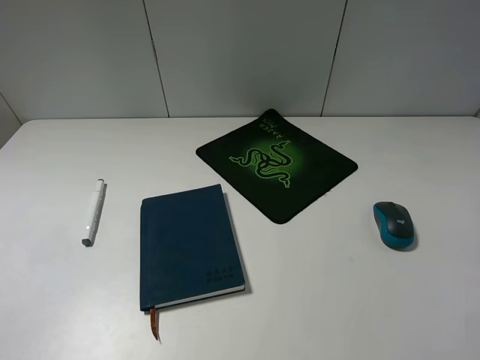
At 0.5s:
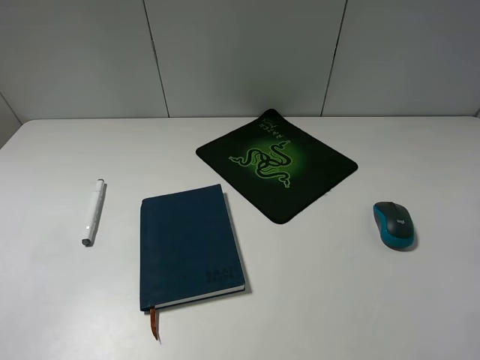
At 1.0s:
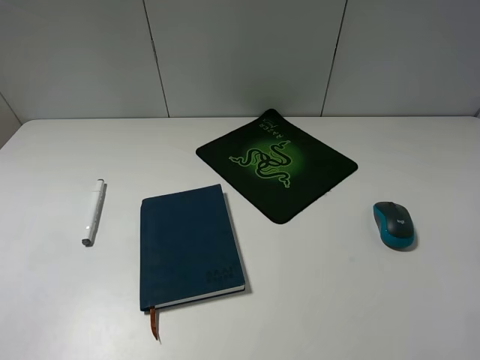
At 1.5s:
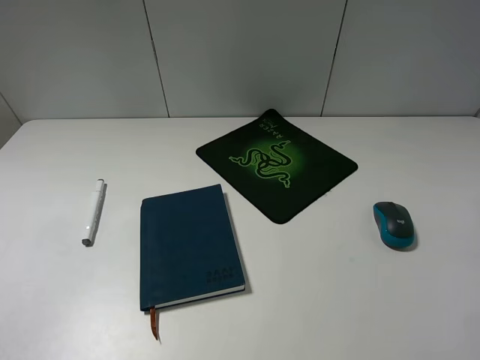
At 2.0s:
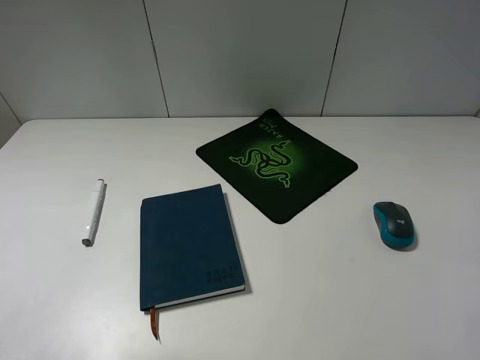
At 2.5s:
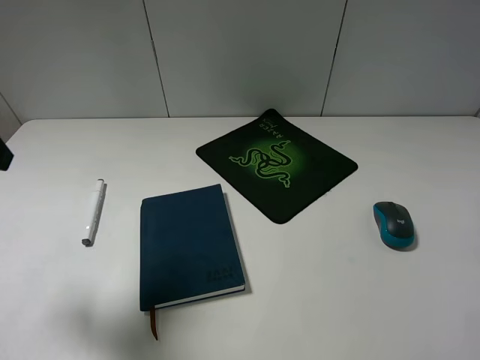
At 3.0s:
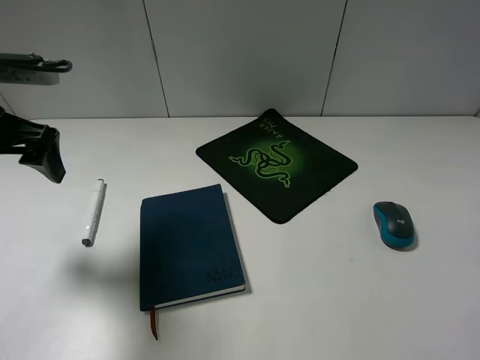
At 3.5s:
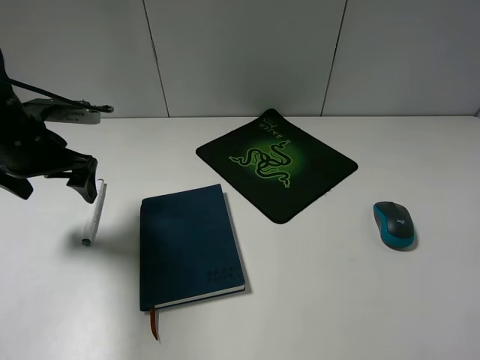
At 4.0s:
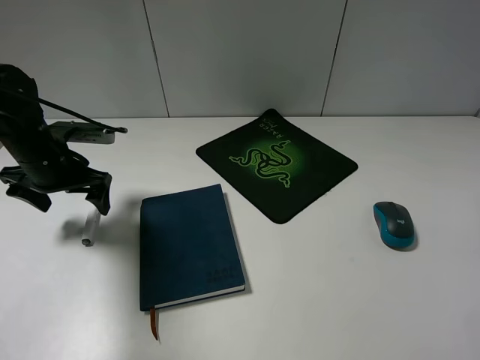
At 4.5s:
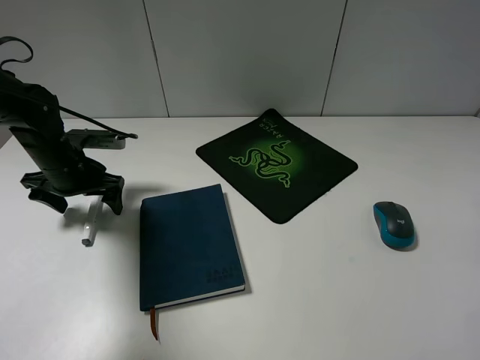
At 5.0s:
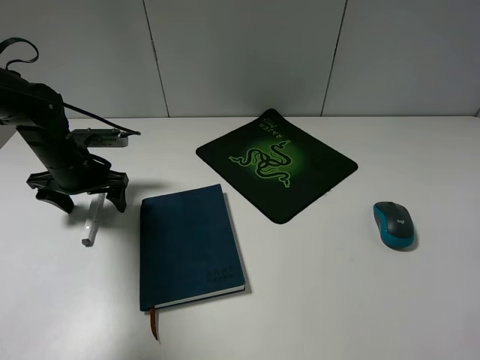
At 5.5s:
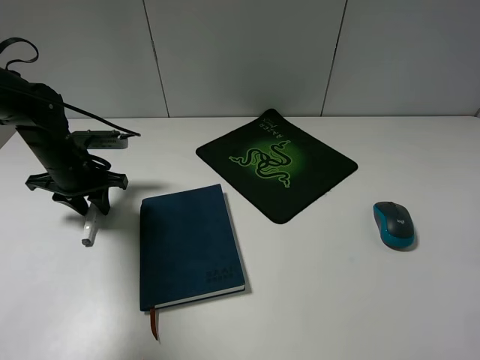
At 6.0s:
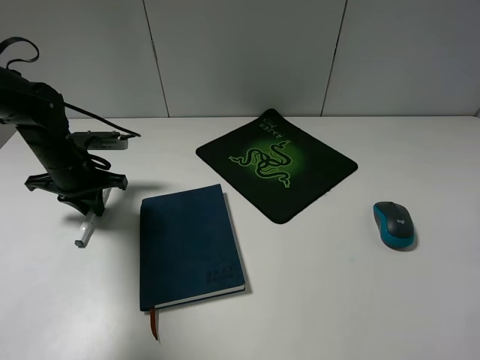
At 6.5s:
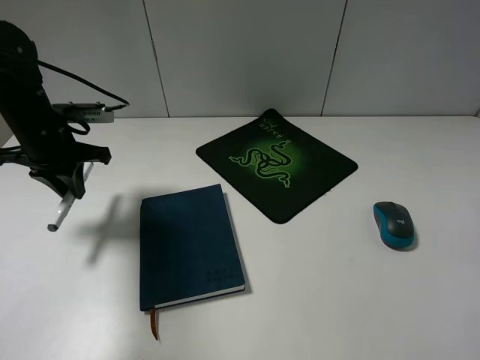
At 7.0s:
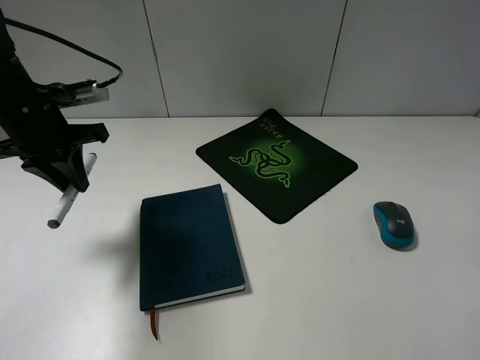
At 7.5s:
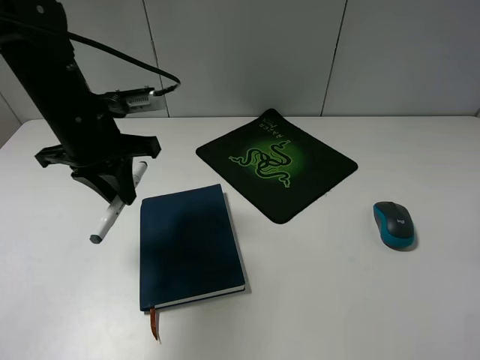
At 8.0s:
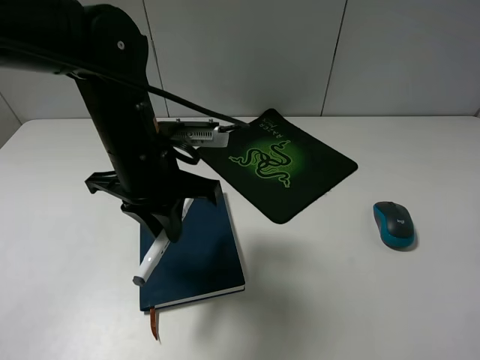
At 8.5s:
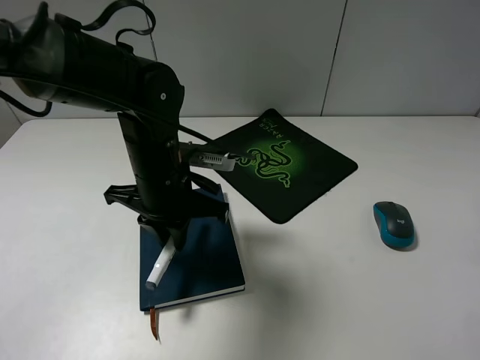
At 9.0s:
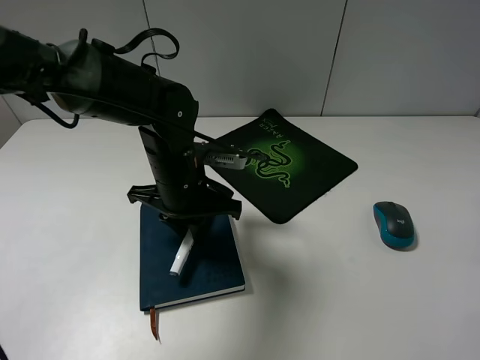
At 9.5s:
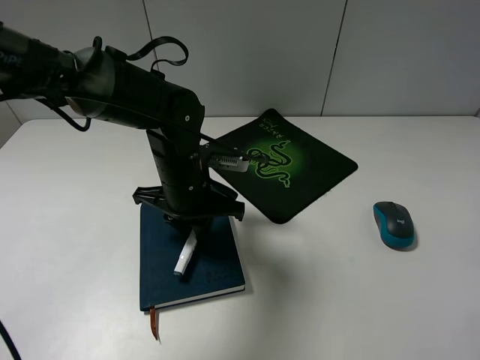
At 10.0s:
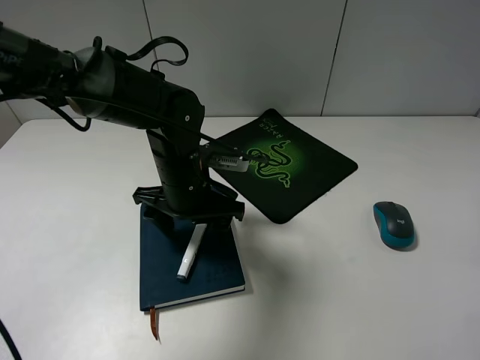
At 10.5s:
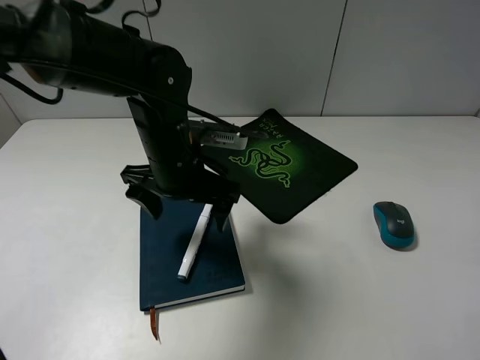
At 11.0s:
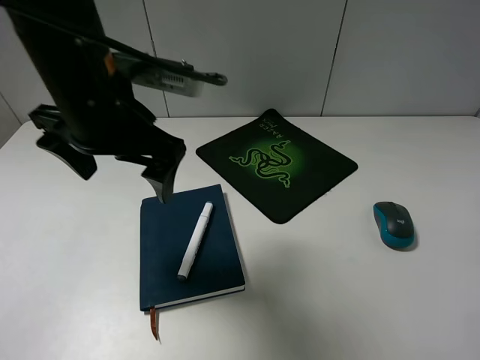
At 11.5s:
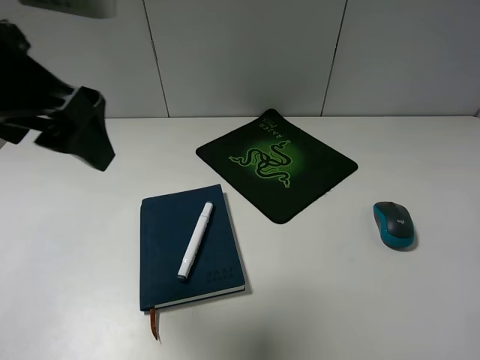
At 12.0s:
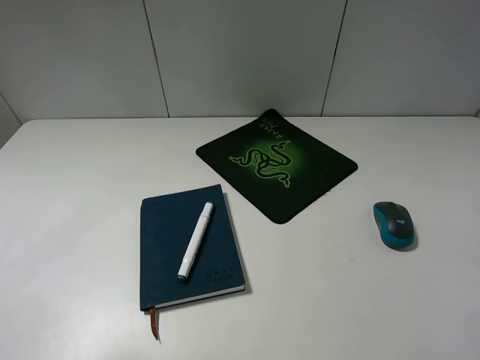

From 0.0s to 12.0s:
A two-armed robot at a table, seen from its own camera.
Step, from 0.0s to 5.5s: Grasp the marker with the left gripper.
Step, from 6.0s to 10.0s: Place the marker on the notebook with the left gripper.
From 2.0s to 4.0s: The left gripper goes some 30 cm forward and downward.
From 4.0s to 6.0s: The left gripper closes its fingers.
From 6.0s to 8.0s: The left gripper moves to the right, backward and upward, about 25 cm.
From 8.0s to 10.0s: The left gripper travels downward by some 10 cm, and opens its fingers.
From 10.0s to 12.0s: The left gripper goes about 35 cm upward, backward and to the left.

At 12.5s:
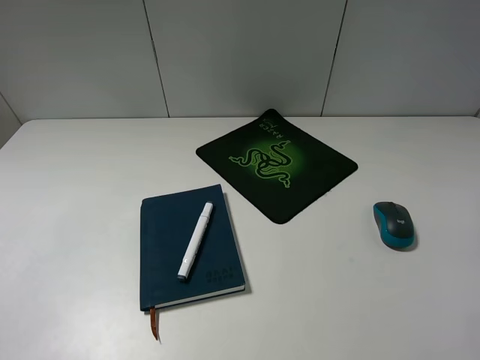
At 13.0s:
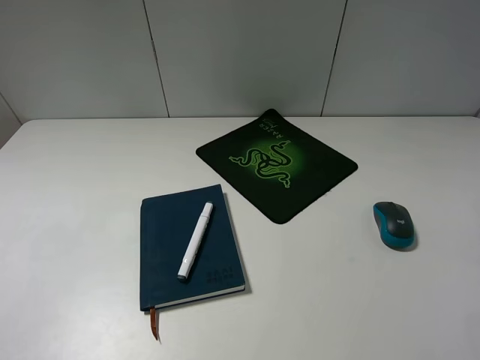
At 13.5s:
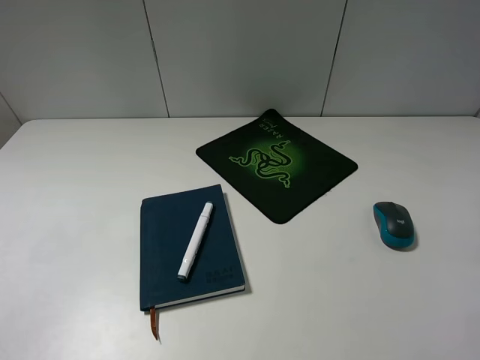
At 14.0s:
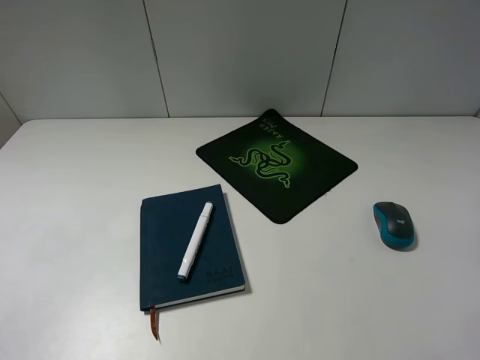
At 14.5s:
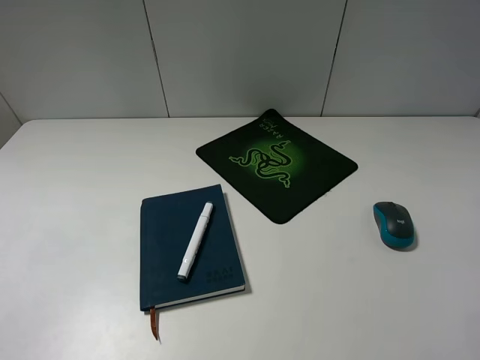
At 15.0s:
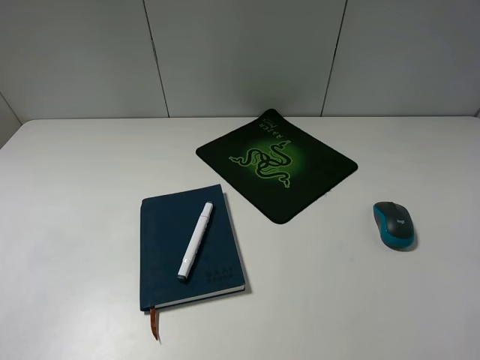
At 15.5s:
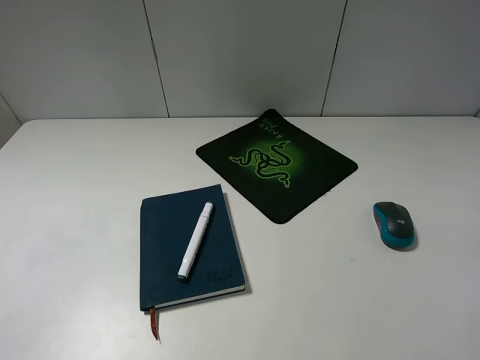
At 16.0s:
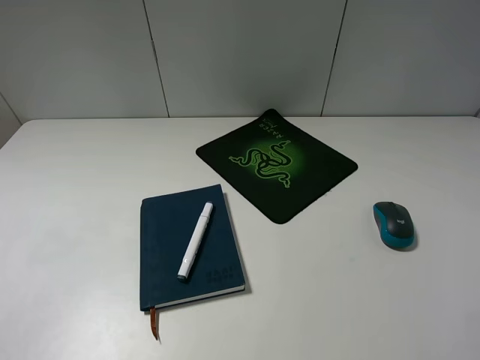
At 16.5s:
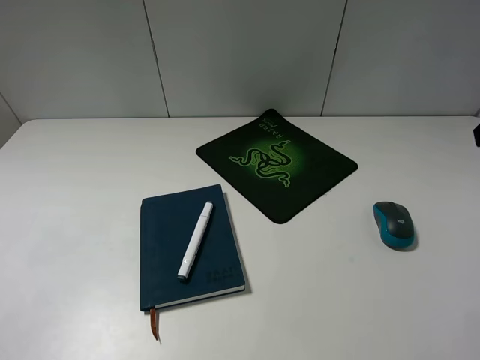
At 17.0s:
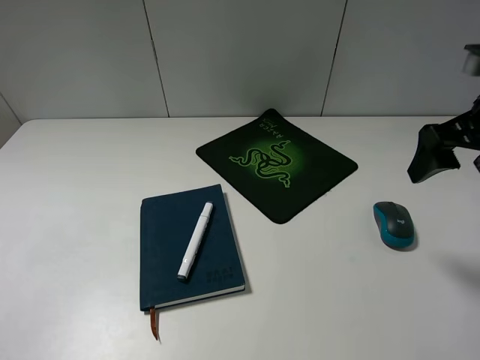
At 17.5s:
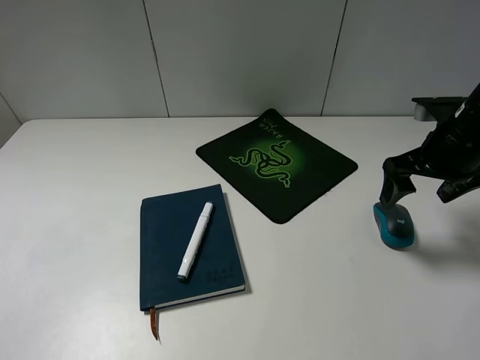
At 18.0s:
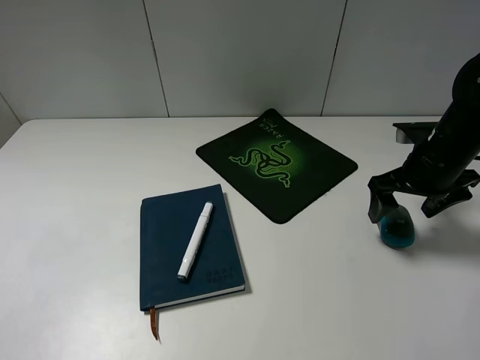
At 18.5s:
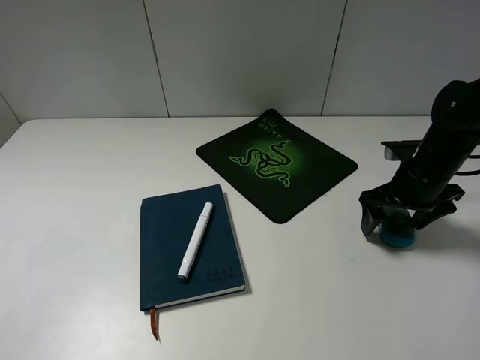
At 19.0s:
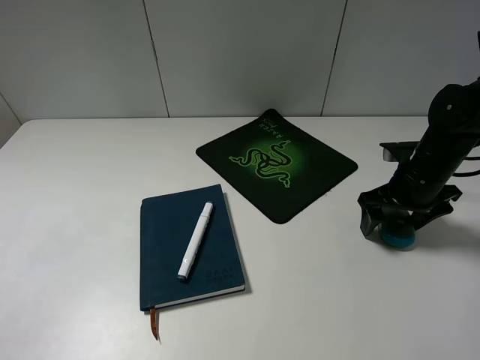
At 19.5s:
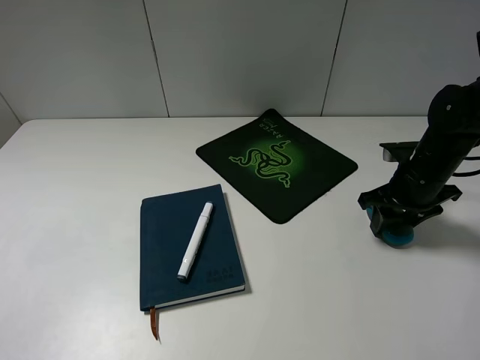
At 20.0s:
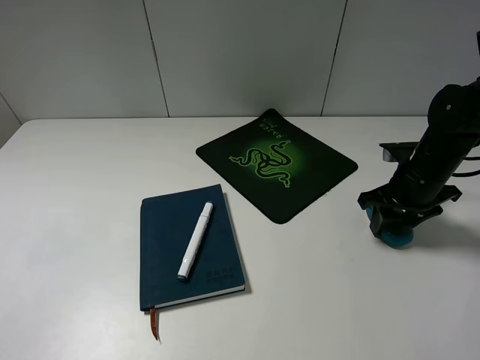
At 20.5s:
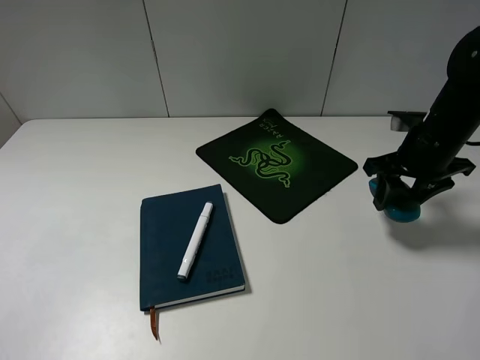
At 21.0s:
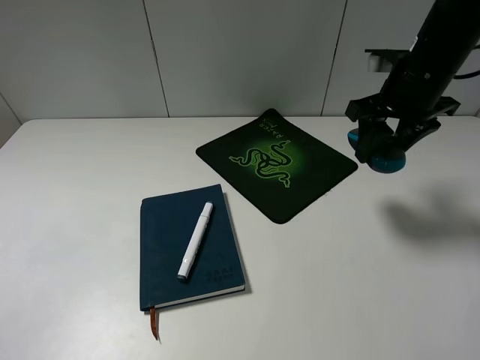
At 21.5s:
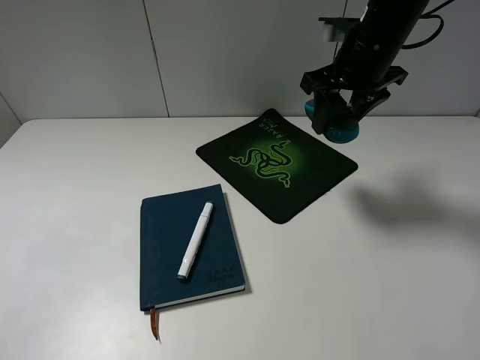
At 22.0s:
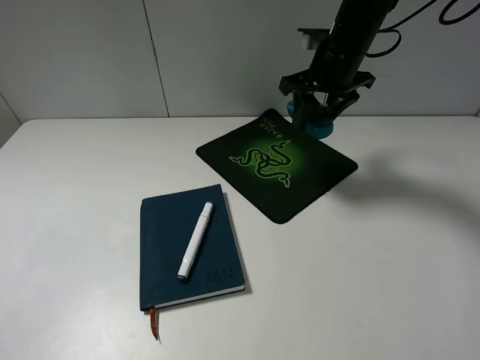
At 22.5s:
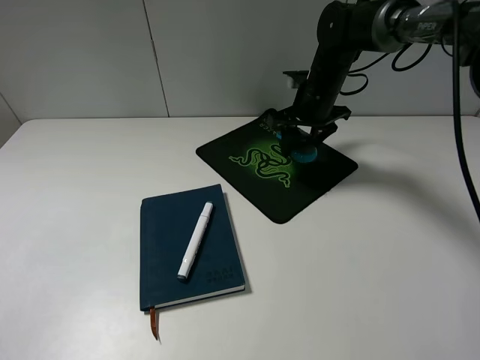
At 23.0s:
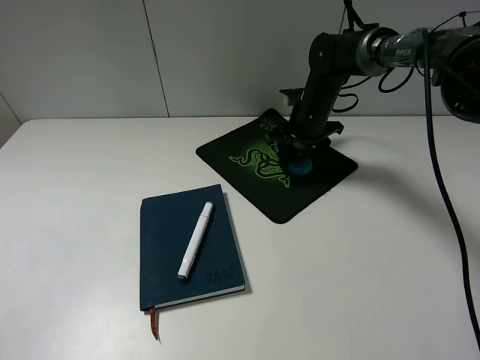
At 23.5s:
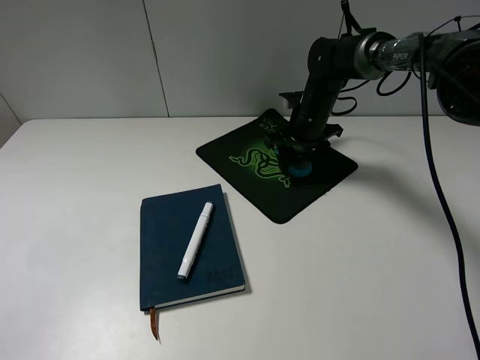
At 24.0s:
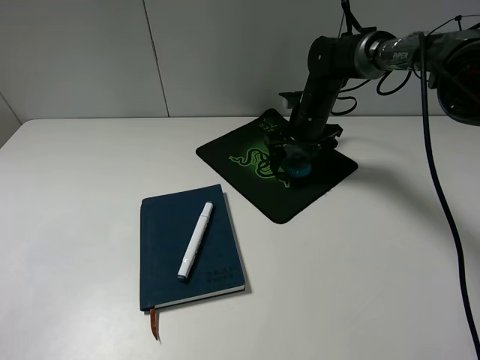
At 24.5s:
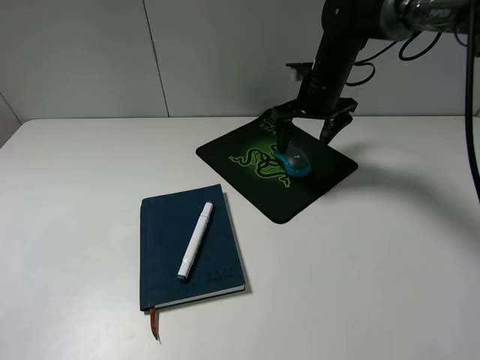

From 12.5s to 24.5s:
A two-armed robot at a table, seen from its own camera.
Step, from 12.5s to 19.5s: Grasp the mouse with the right gripper.
Step, from 20.0s to 24.0s: Place the mouse on the mouse pad with the right gripper.
From 16.5s to 18.5s: The right gripper travels downward and forward by approximately 25 cm.
From 18.5s to 20.5s: The right gripper heads upward, covering some 5 cm, and closes its fingers.
From 20.5s to 22.5s: The right gripper goes approximately 20 cm to the left and forward.
From 22.5s to 24.5s: The right gripper opens up.

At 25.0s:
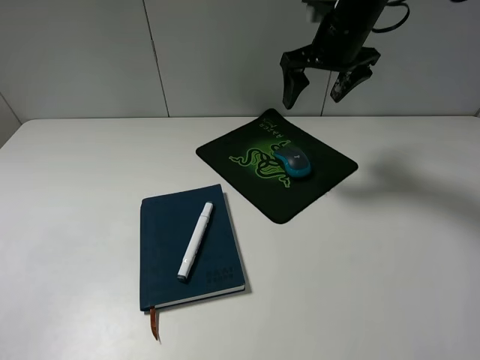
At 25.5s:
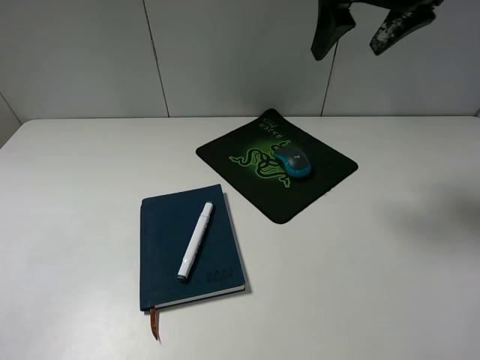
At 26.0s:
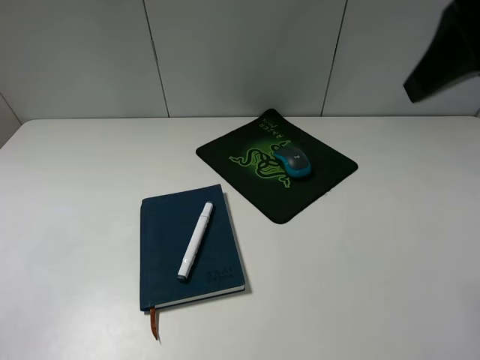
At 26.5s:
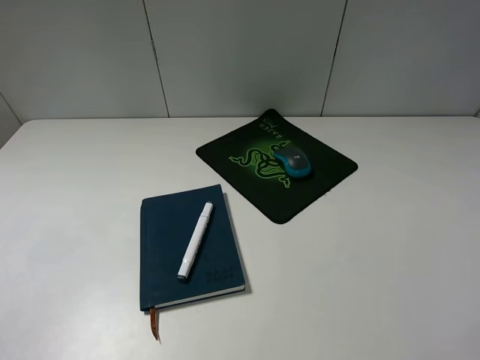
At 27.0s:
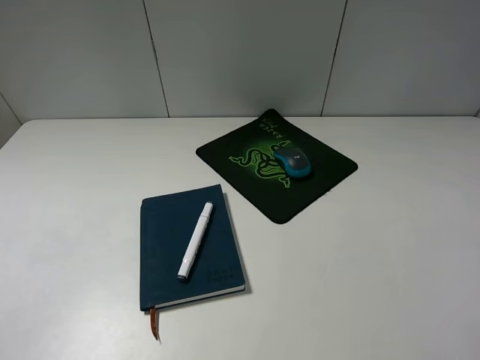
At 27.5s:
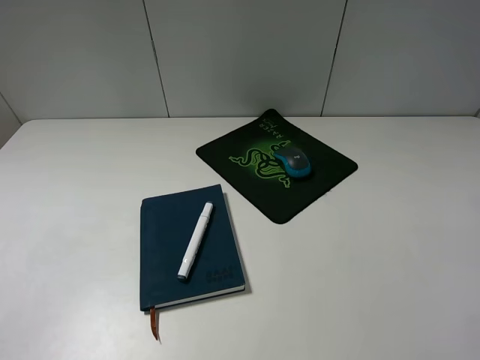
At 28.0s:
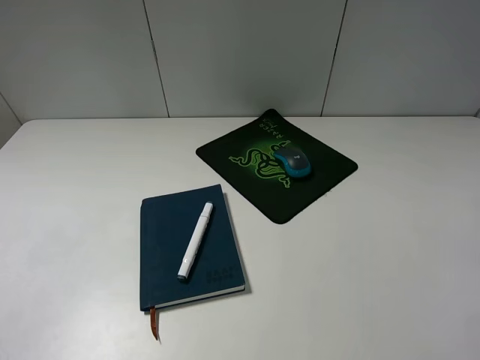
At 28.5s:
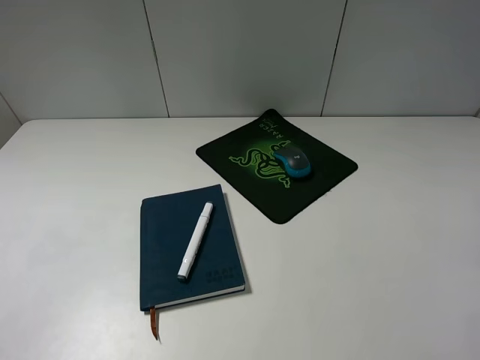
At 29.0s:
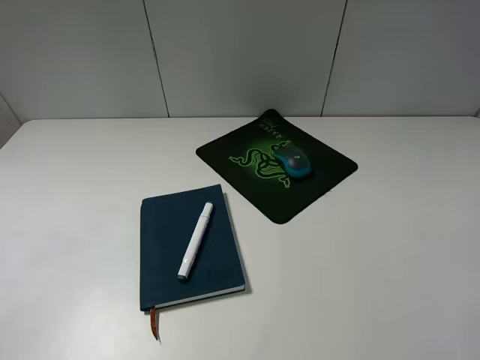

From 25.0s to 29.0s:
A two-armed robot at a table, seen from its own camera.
From 25.0s to 27.0s: The right gripper heads backward, covering roughly 40 cm.
